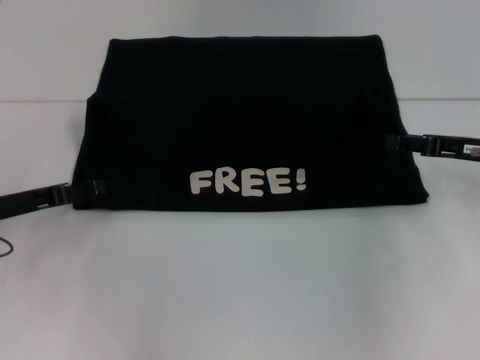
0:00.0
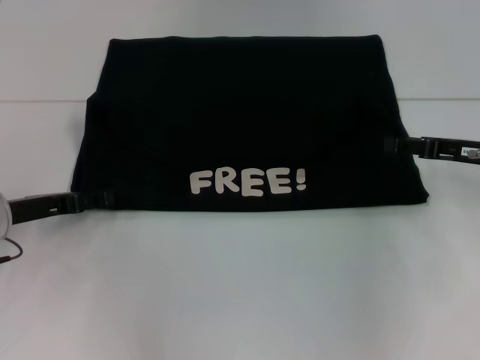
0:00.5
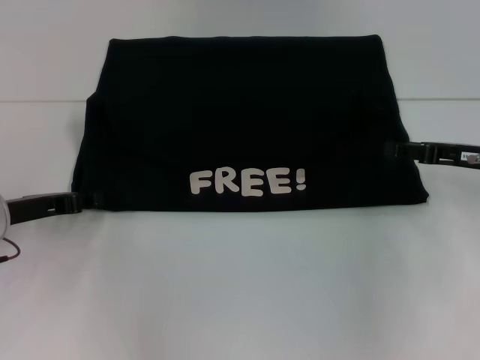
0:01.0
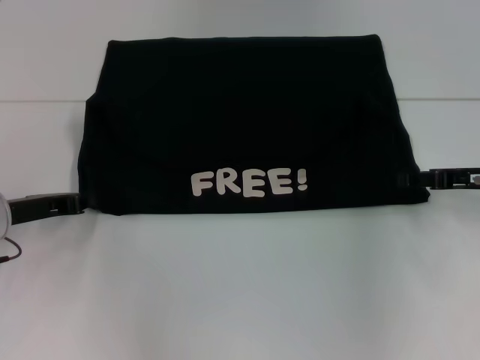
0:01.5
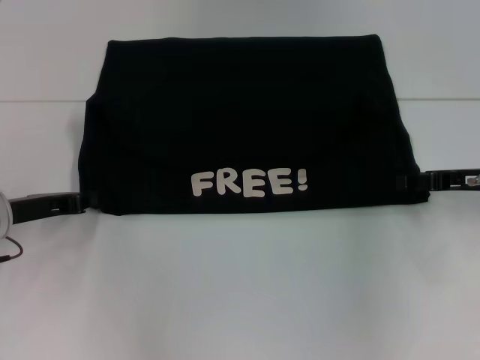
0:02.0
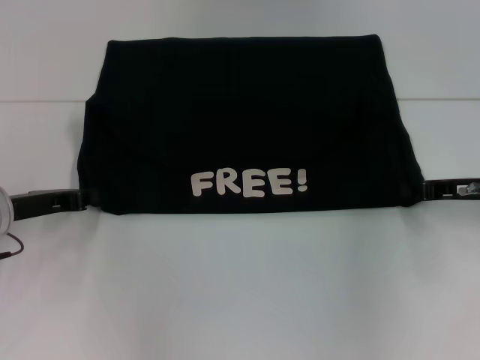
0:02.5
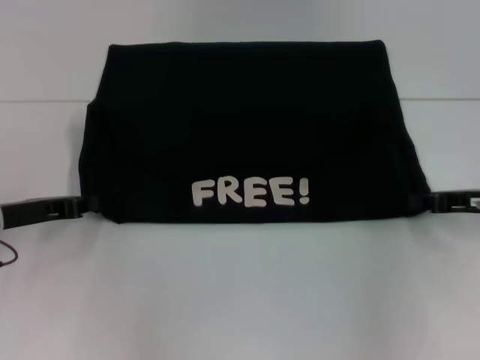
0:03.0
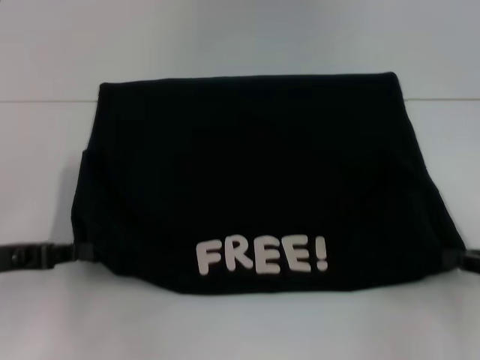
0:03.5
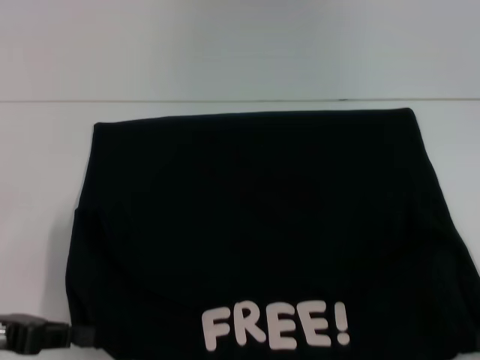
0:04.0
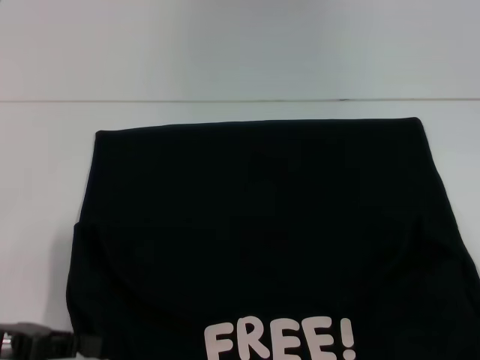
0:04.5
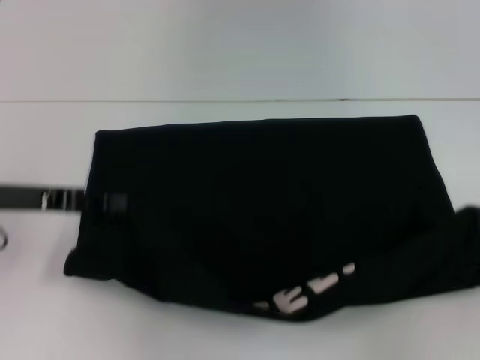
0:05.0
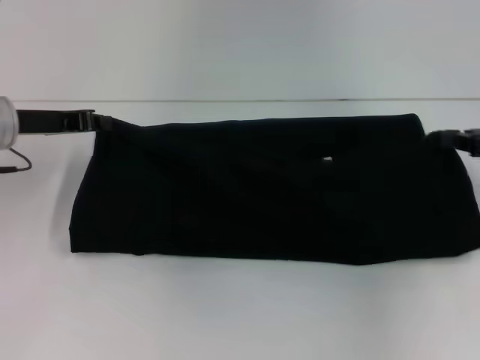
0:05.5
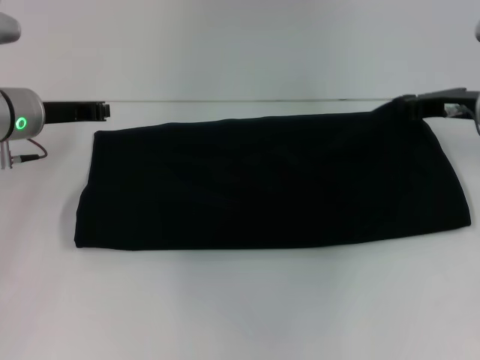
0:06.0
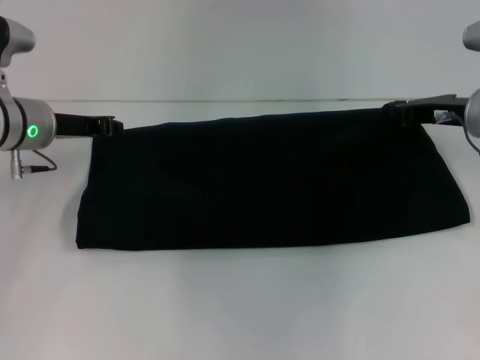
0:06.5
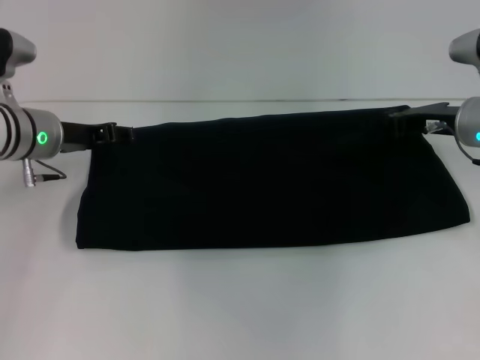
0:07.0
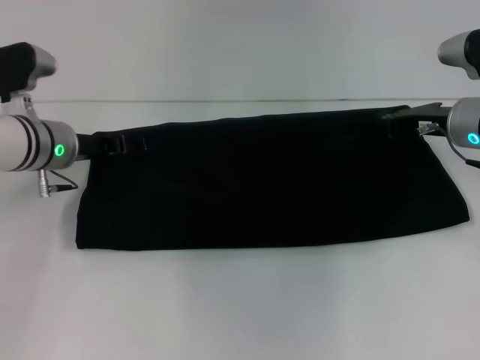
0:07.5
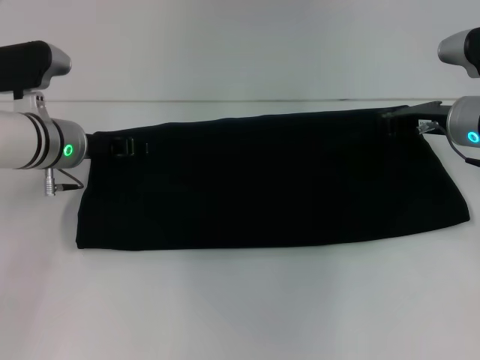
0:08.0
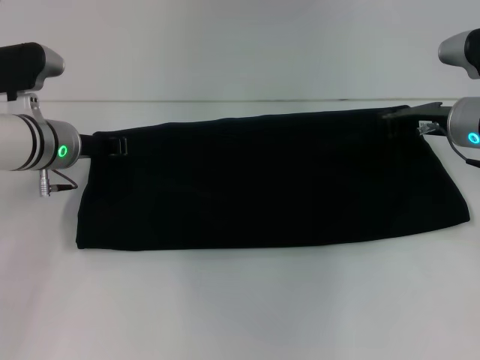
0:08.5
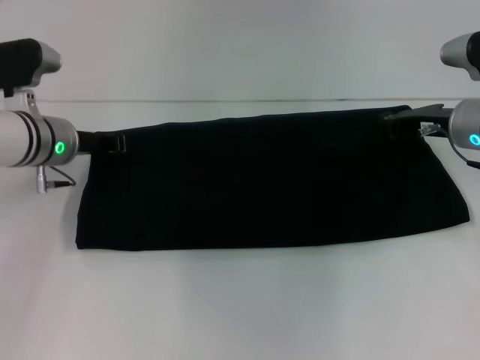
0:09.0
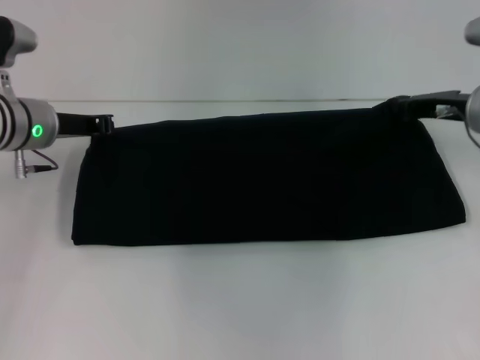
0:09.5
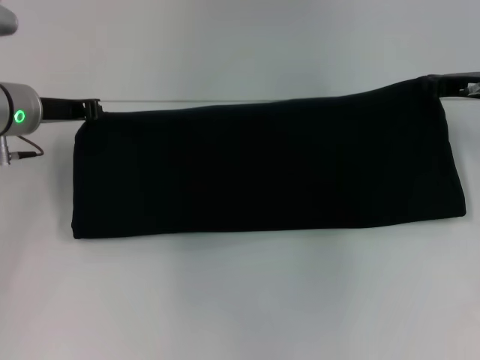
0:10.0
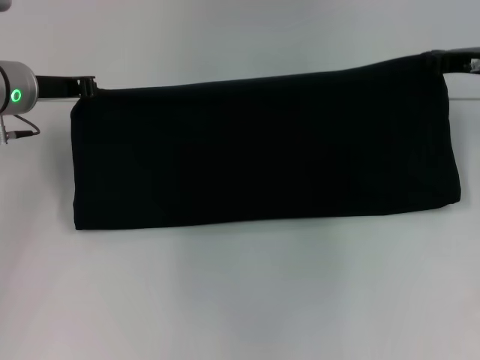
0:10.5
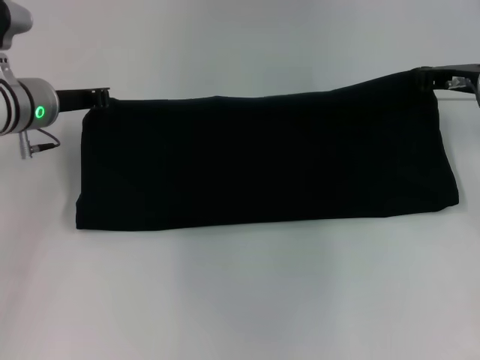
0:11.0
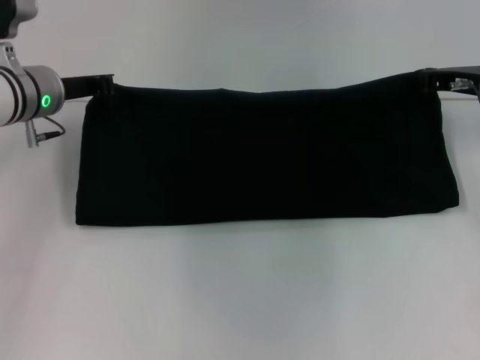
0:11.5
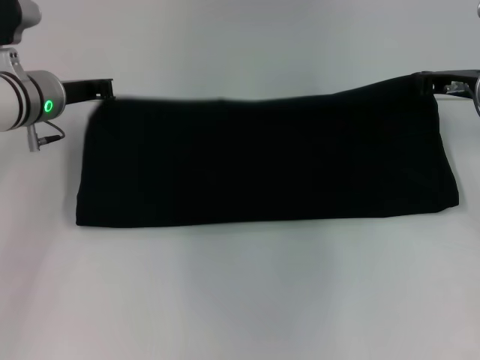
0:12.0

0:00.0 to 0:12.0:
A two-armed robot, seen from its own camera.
Step, 0:00.0 to 0:04.0: Pull the clothes with your left hand.
Step, 0:00.0 to 0:04.0: Pull the clothes with your right hand.
0:00.0 to 0:02.0: The left gripper closes.
0:02.0 to 0:04.0: The left gripper shifts roughly 10 cm backward, while the right gripper is displaced backward and to the right by about 20 cm, and closes.
0:04.0 to 0:06.0: The right gripper heads forward and to the left, covering approximately 25 cm, while the left gripper travels forward by roughly 20 cm.
0:06.0 to 0:08.0: The left gripper ends up approximately 5 cm from where it was, and opens up.
0:08.0 to 0:10.0: The left gripper changes place by approximately 5 cm, and closes up. The right gripper changes place by roughly 5 cm.
0:10.0 to 0:12.0: The grippers stay close to where they were, moving slightly.

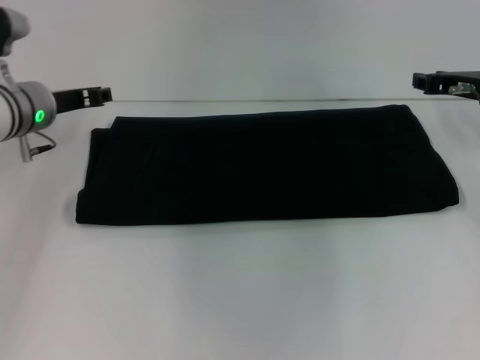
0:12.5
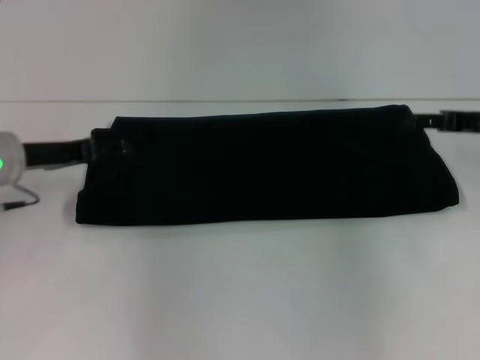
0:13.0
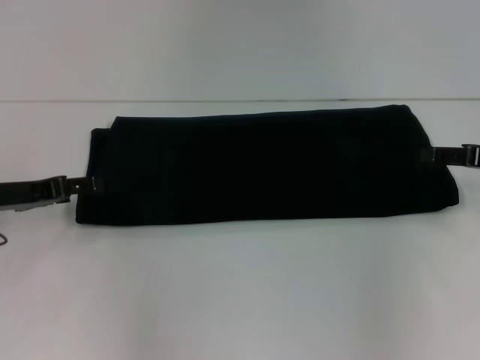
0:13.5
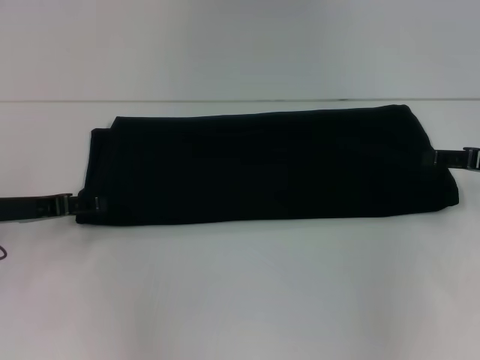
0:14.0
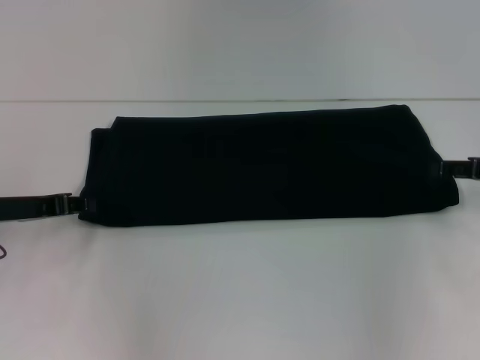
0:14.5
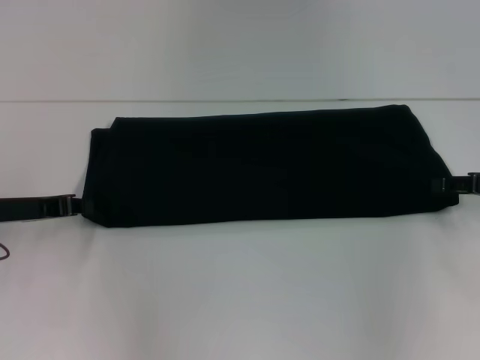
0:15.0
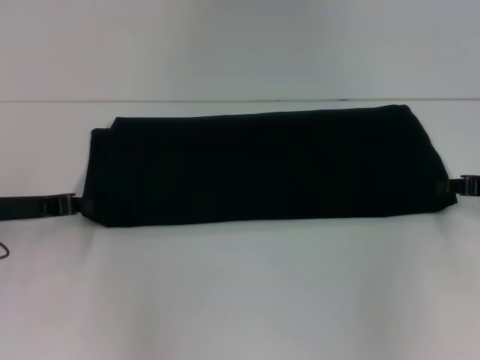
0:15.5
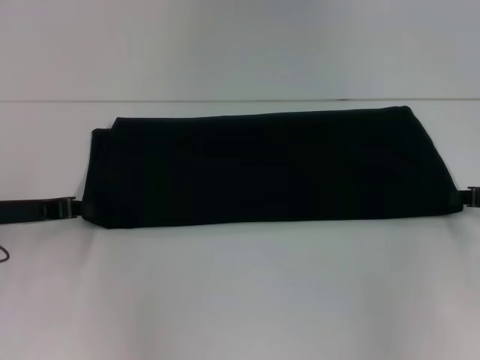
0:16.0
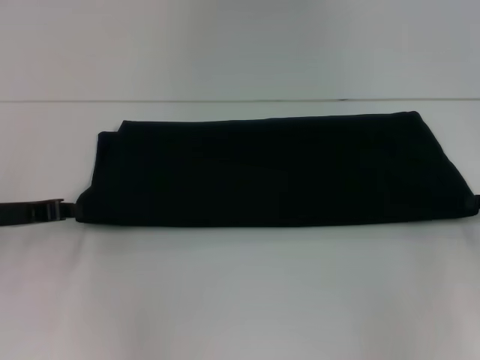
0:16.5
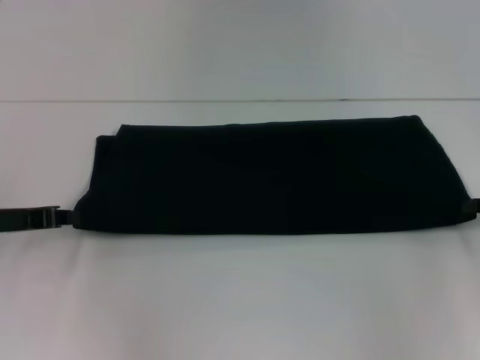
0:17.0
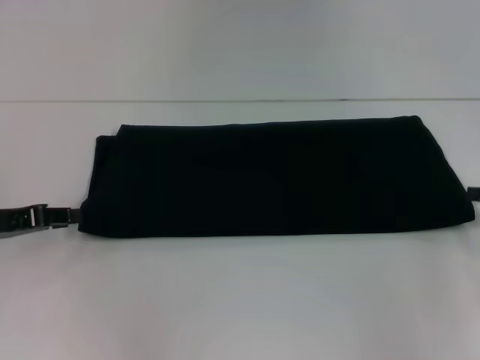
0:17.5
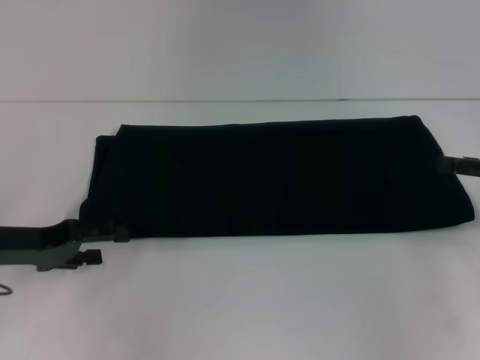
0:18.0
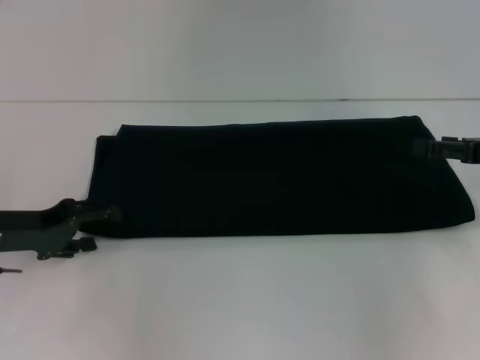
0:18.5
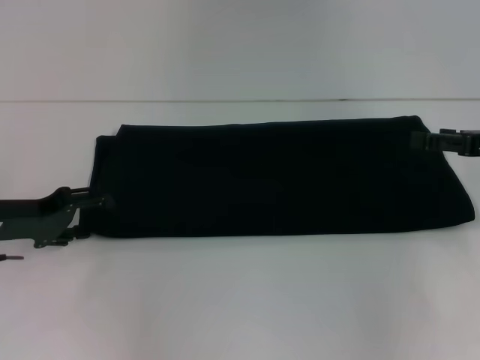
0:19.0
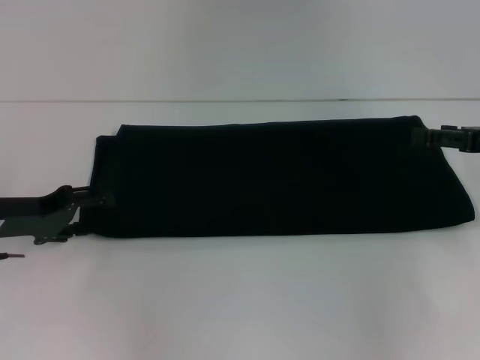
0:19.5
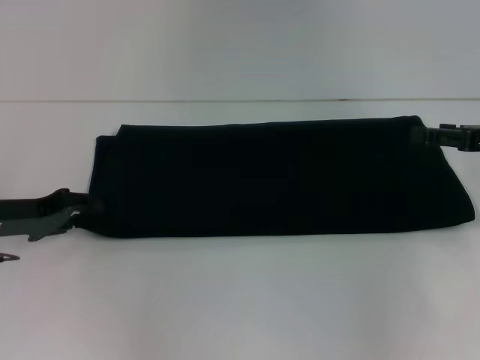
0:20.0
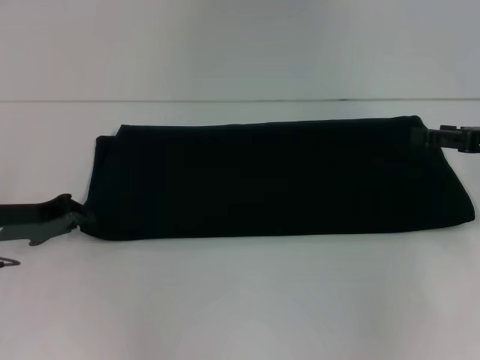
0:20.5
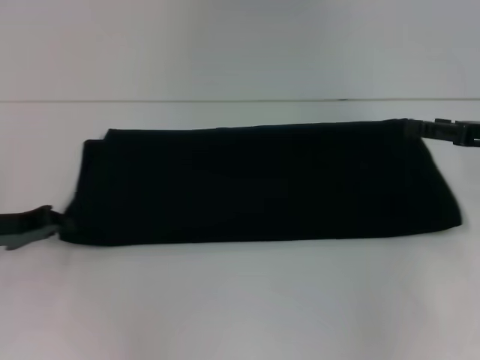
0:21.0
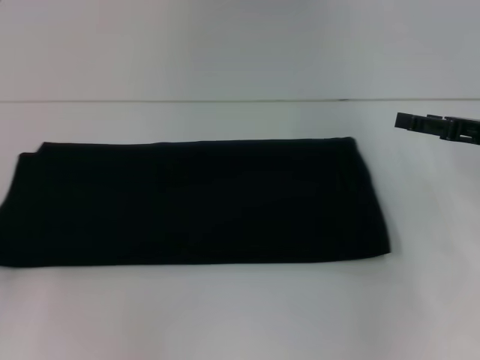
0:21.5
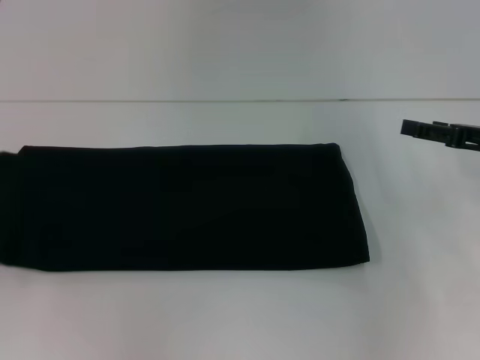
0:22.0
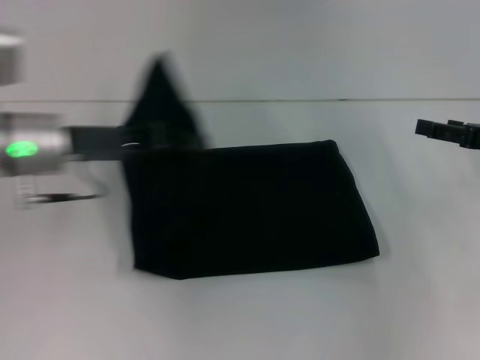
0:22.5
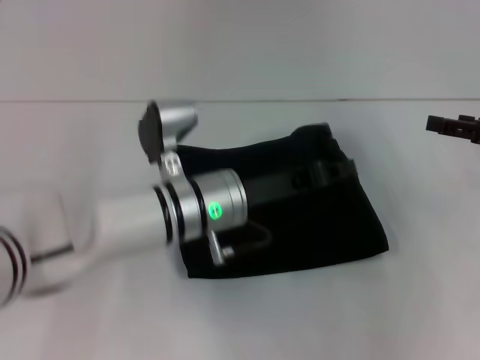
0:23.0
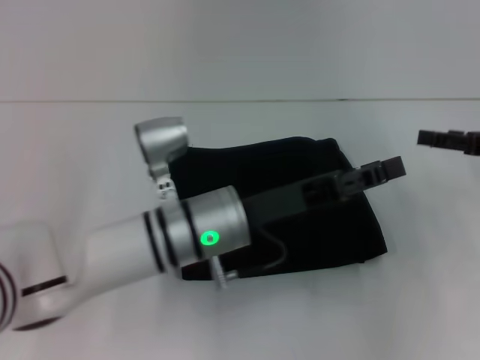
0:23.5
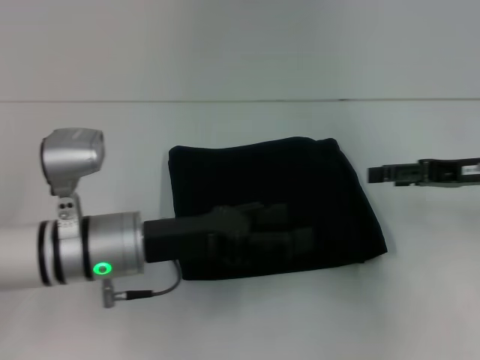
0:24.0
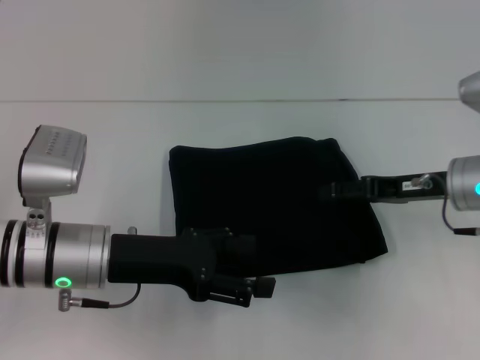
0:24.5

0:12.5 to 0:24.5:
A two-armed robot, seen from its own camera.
Step, 0:12.5 to 0:23.0: Fold the clothes with your left hand.
0:12.5 to 0:14.5: The right gripper heads backward and to the right, covering some 10 cm, and opens its fingers; the left gripper moves backward and to the left, roughly 10 cm, and opens, then closes again.
0:14.5 to 0:16.5: The left gripper closes, while the right gripper closes up.
0:16.5 to 0:18.5: The right gripper ends up approximately 5 cm from where it was, and opens up; the left gripper opens up.
0:18.5 to 0:20.5: The left gripper closes up.
0:20.5 to 0:22.5: The left gripper goes roughly 10 cm to the right and upward.
0:22.5 to 0:24.5: The right gripper shifts approximately 10 cm to the left. The left gripper travels backward and downward by approximately 10 cm, goes to the right and returns, about 15 cm each way, and opens up.

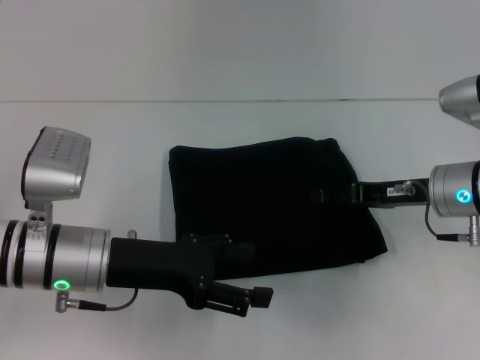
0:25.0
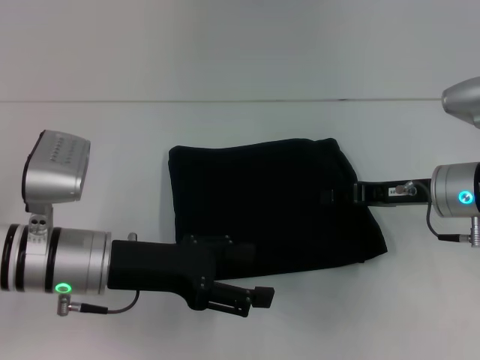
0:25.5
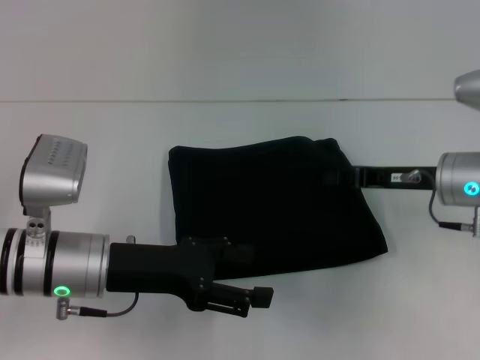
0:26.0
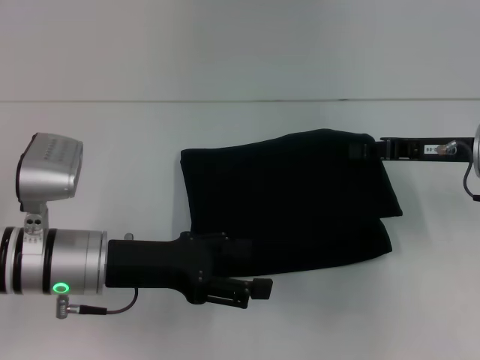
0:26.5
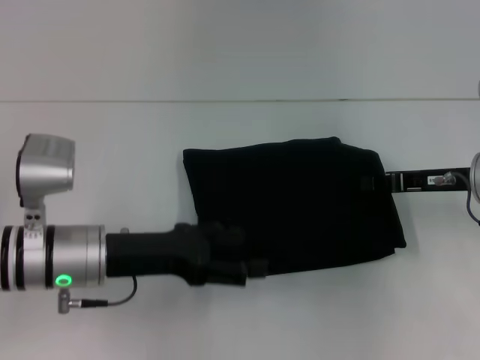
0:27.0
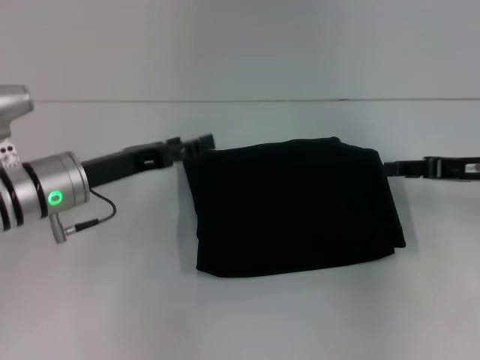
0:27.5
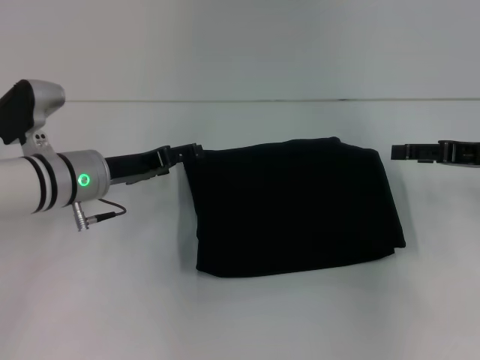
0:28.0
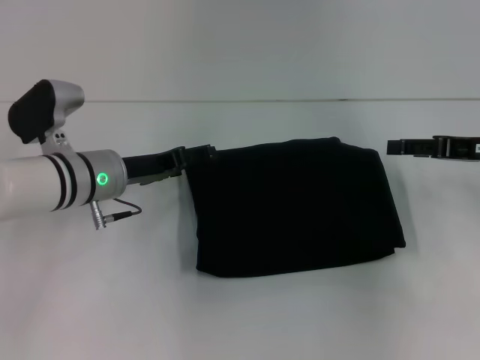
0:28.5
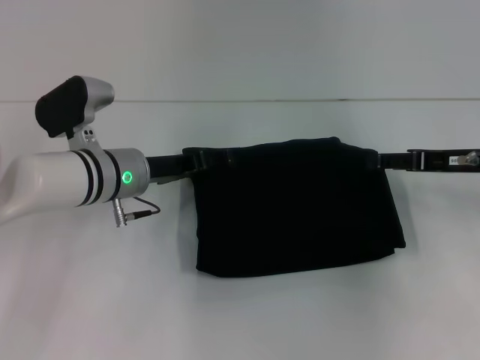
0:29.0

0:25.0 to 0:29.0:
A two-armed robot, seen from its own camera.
0:25.0 to 0:27.0: The right gripper closes.
0:27.0 to 0:29.0: The left gripper is displaced forward by roughly 10 cm; the right gripper opens up.
